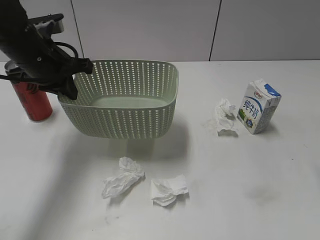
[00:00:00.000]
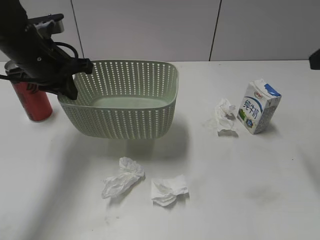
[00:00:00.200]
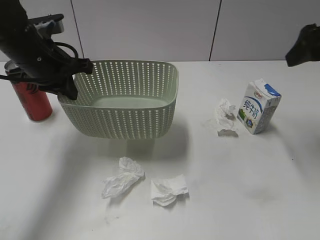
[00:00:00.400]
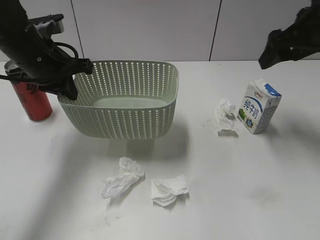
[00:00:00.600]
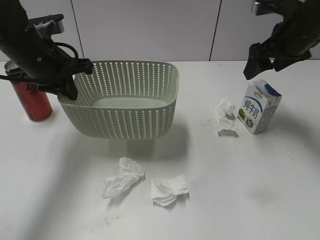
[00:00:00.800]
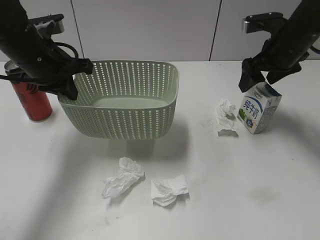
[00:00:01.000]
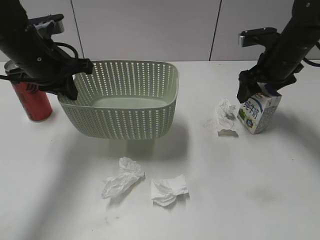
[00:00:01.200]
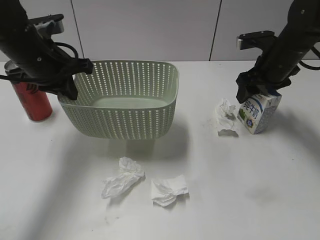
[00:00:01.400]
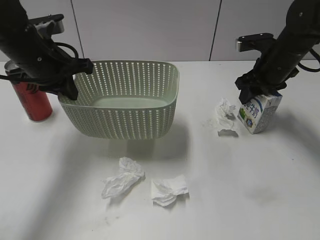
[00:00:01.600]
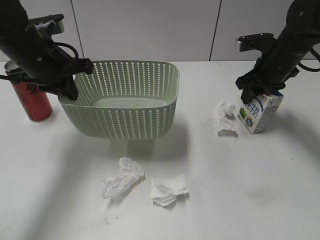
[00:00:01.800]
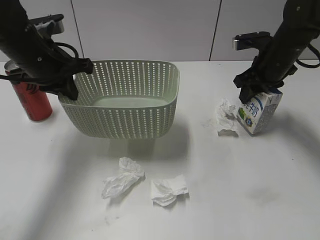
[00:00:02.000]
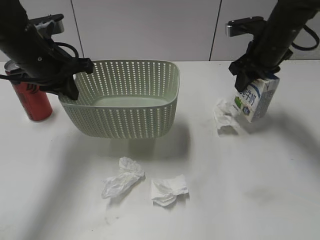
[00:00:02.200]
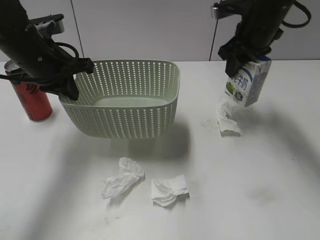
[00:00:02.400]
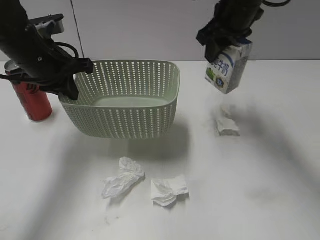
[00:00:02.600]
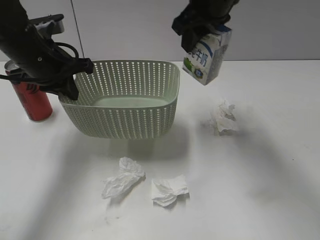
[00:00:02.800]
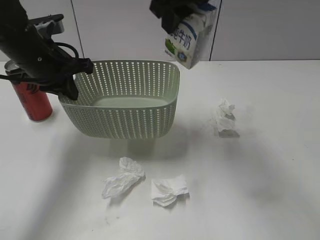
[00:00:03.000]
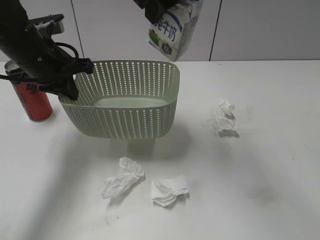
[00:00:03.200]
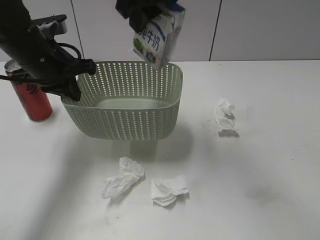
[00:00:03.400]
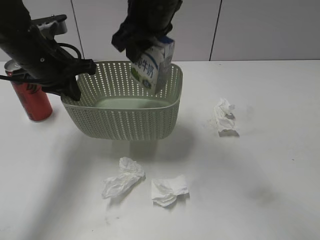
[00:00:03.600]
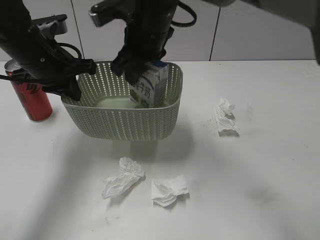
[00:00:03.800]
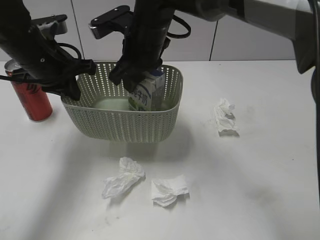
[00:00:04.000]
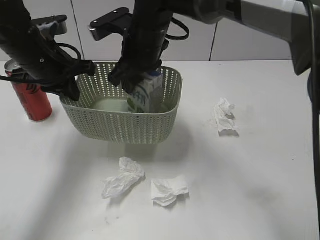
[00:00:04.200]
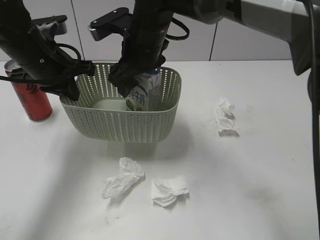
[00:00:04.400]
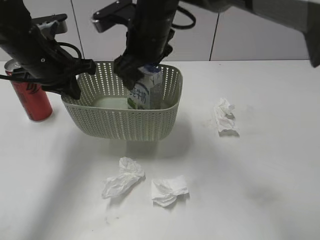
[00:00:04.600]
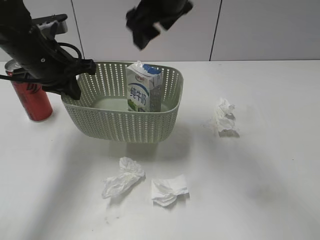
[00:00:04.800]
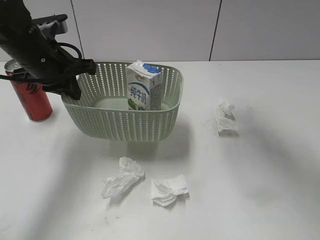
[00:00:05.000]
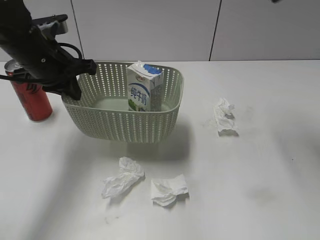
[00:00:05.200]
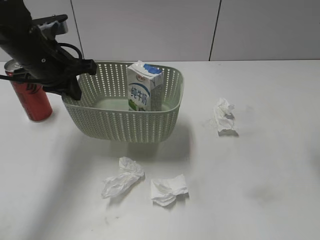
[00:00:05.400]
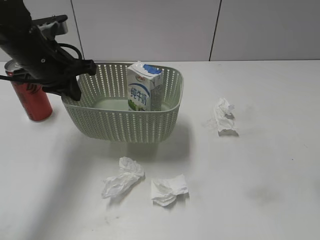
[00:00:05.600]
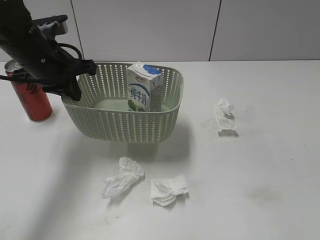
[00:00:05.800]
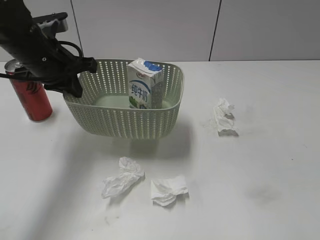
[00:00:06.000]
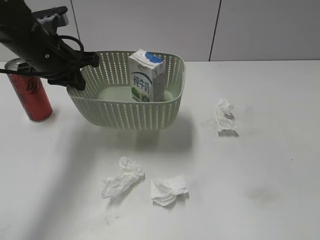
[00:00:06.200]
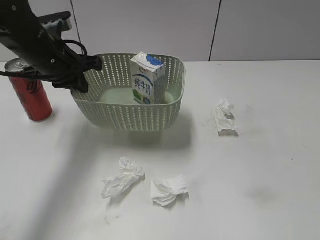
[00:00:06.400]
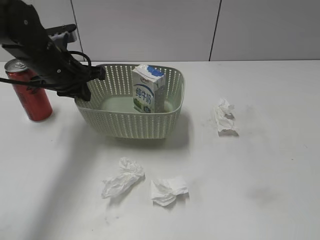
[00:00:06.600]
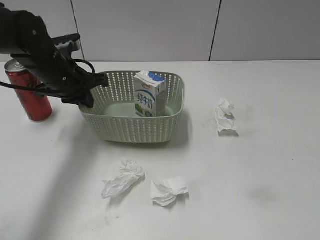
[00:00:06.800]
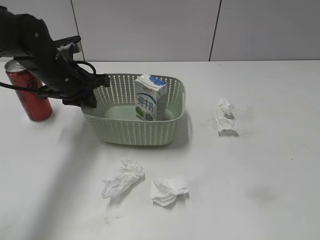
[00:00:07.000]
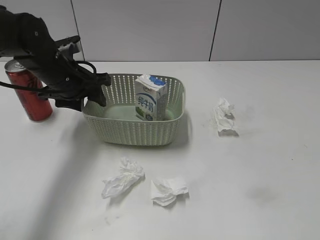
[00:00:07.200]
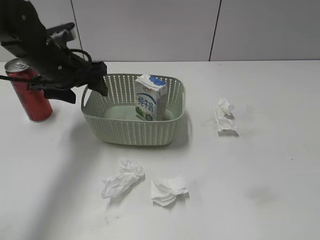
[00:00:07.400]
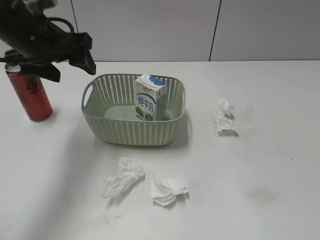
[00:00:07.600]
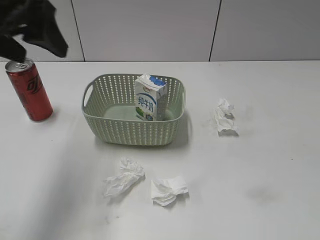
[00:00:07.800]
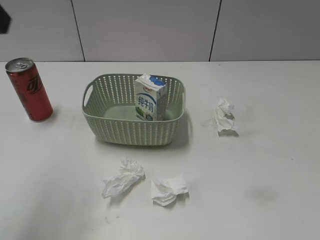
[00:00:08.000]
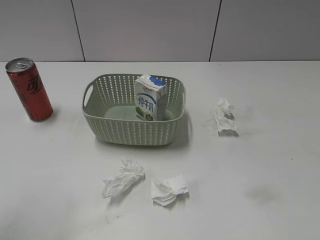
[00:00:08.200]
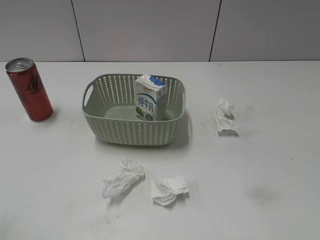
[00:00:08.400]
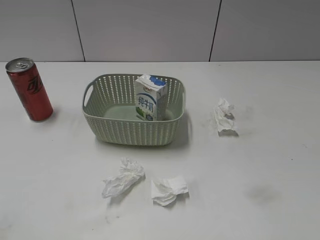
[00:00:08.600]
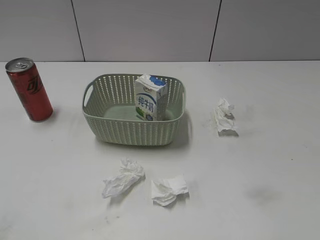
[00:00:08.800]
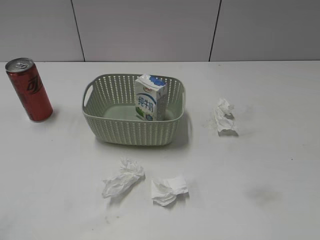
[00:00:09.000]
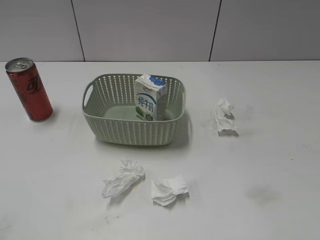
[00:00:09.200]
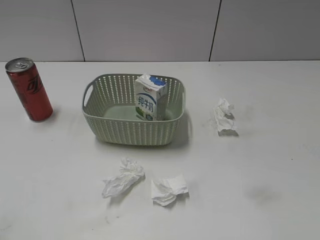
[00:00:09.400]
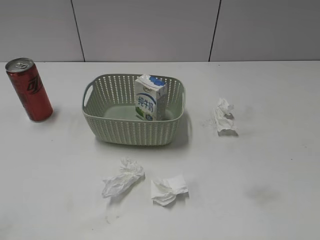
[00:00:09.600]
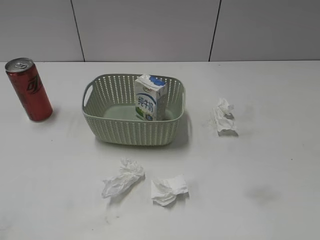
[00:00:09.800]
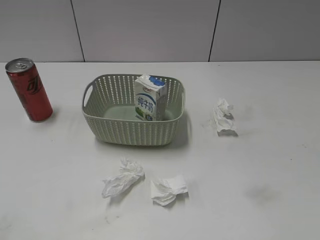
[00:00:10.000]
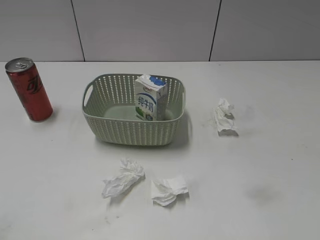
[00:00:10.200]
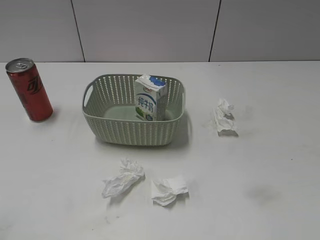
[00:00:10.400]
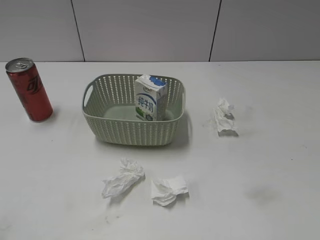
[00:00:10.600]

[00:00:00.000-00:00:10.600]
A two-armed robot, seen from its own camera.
Step, 00:00:00.000 to 00:00:01.800: Grasp the milk with right gripper.
Step, 00:00:02.000 to 00:00:04.800: Place the milk in the basket with right gripper.
Step, 00:00:05.000 to 00:00:07.600: Place the basket on the table with left gripper.
00:00:00.000 to 00:00:01.600: The right gripper moves forward and downward, approximately 35 cm, and closes.
00:00:01.600 to 00:00:03.000: The right gripper heads to the left and upward, covering some 20 cm, and closes its fingers.
00:00:03.000 to 00:00:04.600: The right gripper goes about 15 cm downward and to the left, and opens.
00:00:04.600 to 00:00:06.000: The right gripper goes about 40 cm to the right and backward.
00:00:06.000 to 00:00:07.600: The right gripper shifts about 5 cm backward; the left gripper opens its fingers.
00:00:07.600 to 00:00:09.000: The left gripper shifts roughly 35 cm backward.
